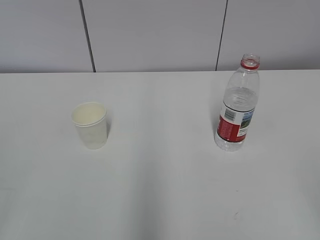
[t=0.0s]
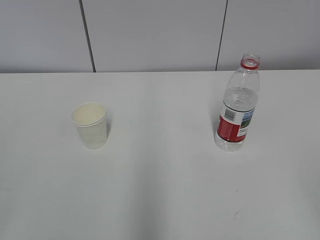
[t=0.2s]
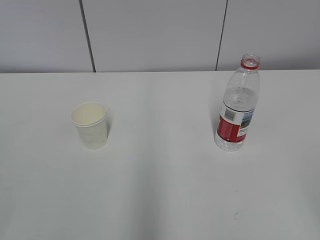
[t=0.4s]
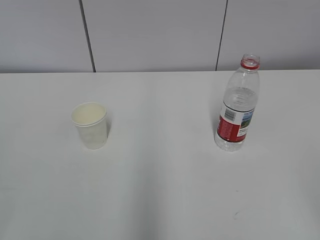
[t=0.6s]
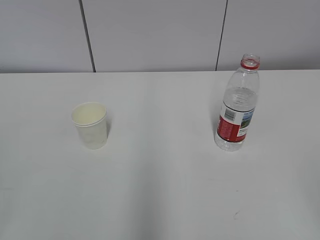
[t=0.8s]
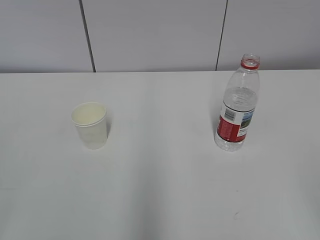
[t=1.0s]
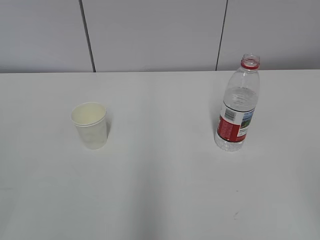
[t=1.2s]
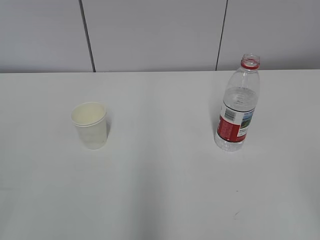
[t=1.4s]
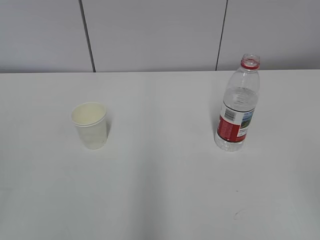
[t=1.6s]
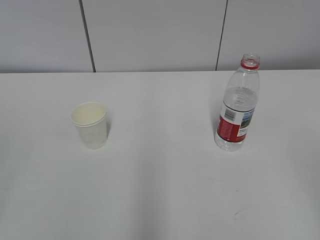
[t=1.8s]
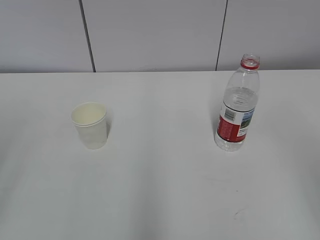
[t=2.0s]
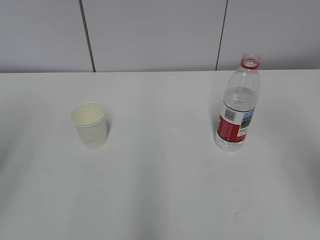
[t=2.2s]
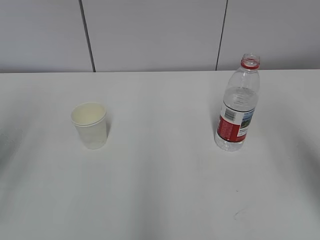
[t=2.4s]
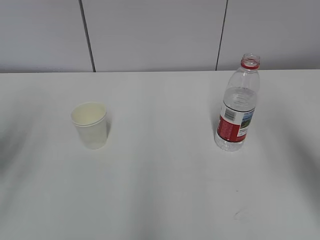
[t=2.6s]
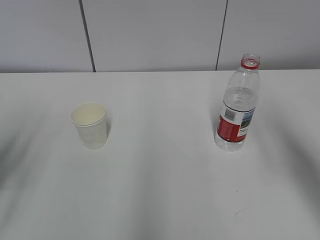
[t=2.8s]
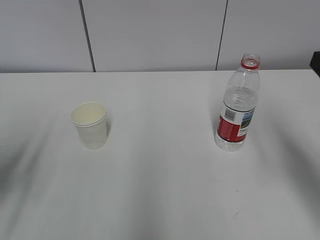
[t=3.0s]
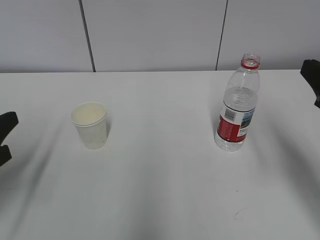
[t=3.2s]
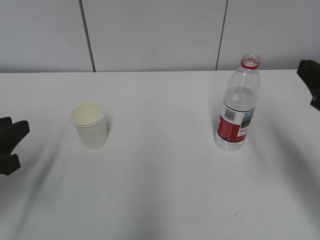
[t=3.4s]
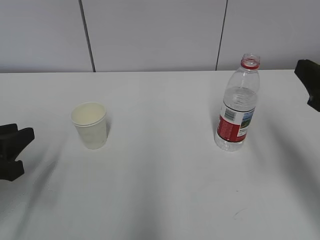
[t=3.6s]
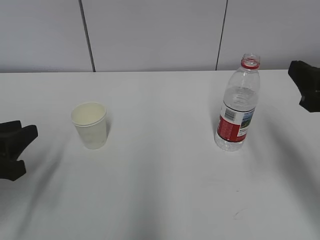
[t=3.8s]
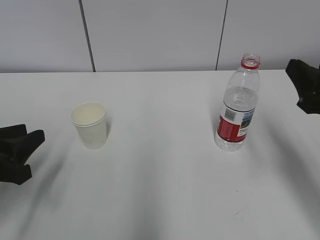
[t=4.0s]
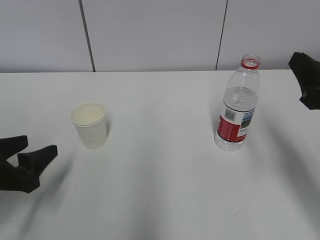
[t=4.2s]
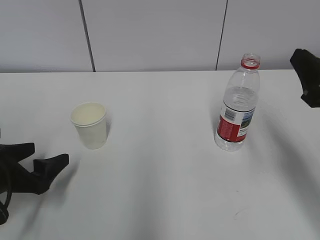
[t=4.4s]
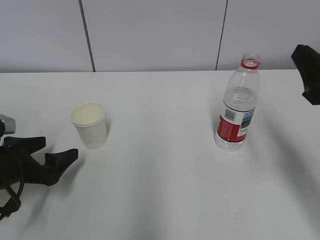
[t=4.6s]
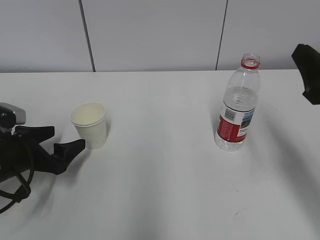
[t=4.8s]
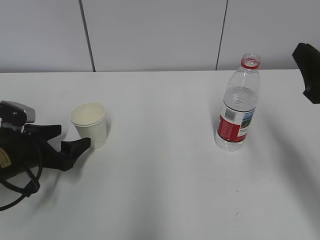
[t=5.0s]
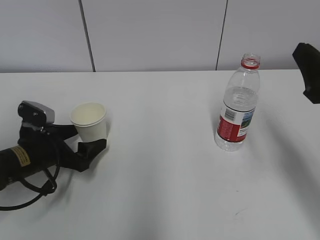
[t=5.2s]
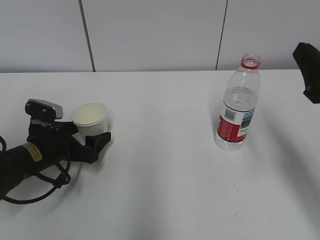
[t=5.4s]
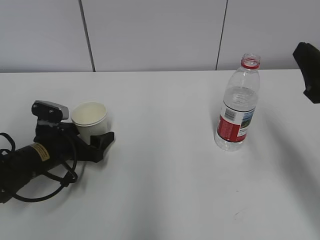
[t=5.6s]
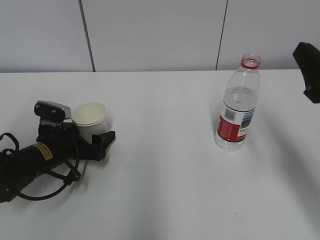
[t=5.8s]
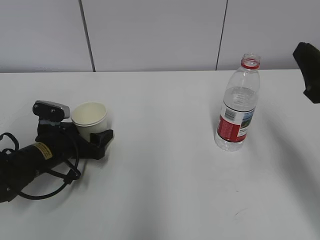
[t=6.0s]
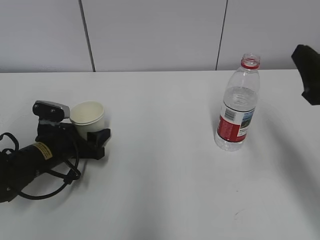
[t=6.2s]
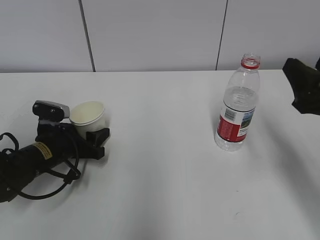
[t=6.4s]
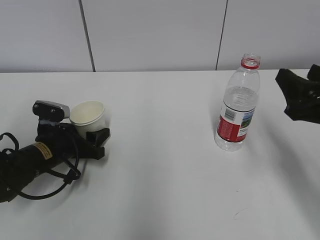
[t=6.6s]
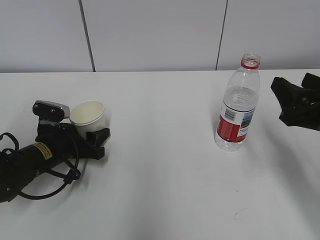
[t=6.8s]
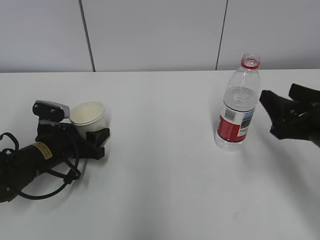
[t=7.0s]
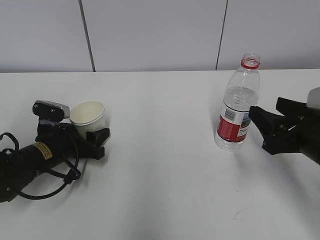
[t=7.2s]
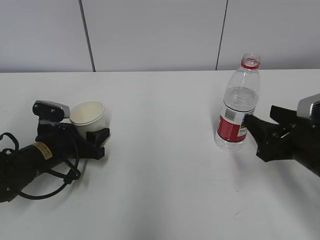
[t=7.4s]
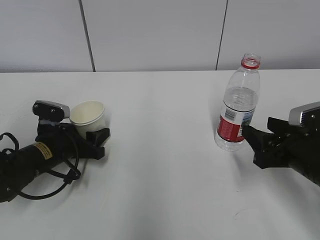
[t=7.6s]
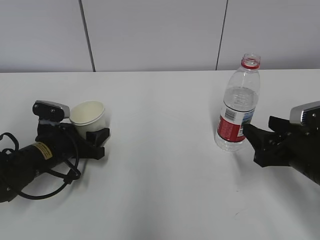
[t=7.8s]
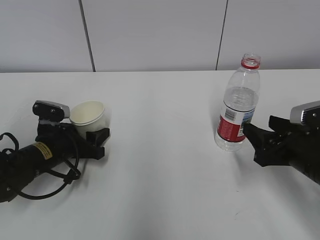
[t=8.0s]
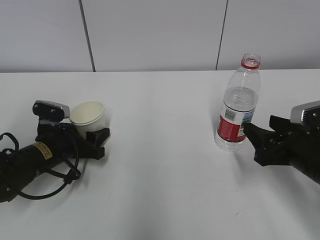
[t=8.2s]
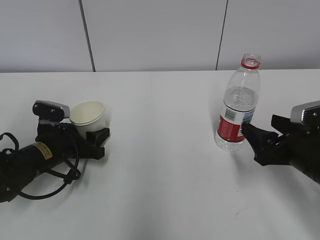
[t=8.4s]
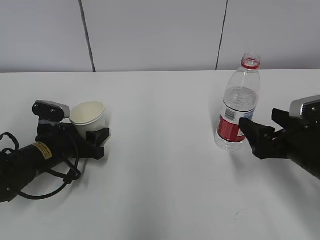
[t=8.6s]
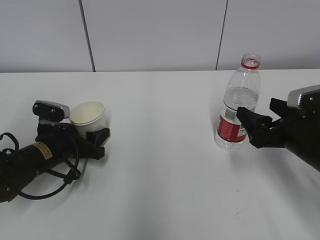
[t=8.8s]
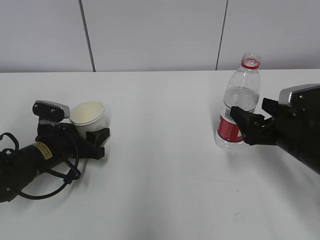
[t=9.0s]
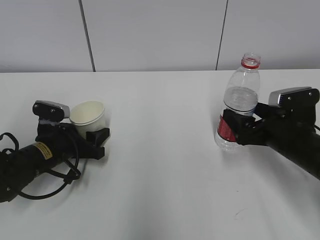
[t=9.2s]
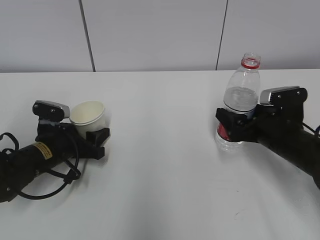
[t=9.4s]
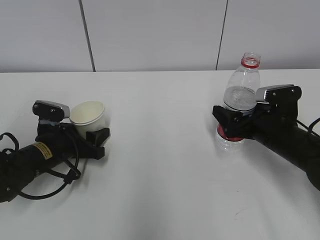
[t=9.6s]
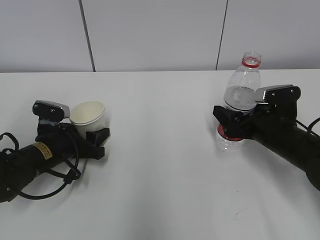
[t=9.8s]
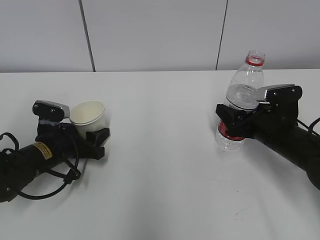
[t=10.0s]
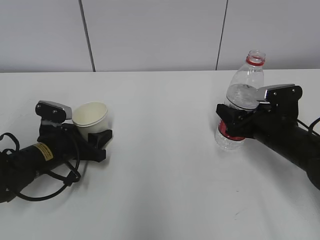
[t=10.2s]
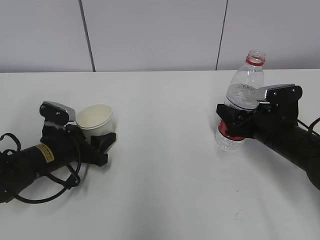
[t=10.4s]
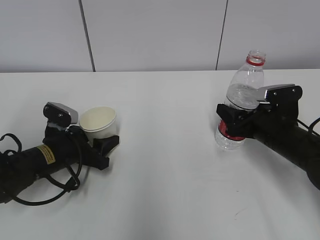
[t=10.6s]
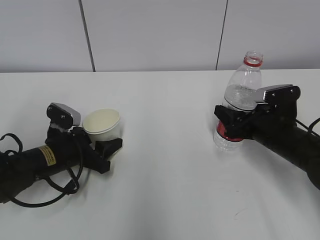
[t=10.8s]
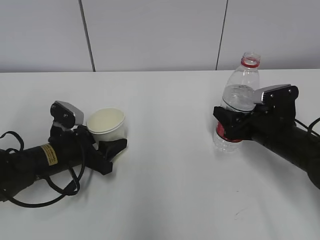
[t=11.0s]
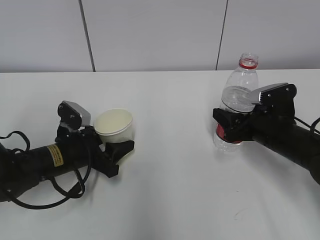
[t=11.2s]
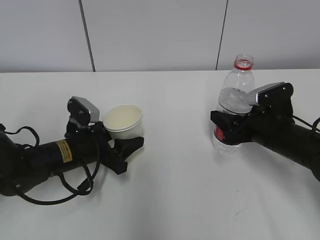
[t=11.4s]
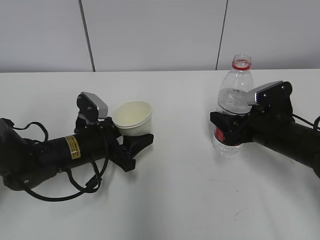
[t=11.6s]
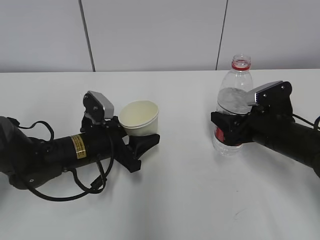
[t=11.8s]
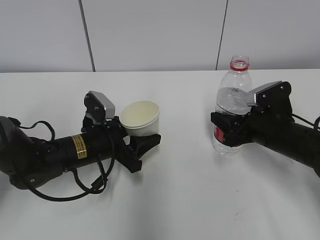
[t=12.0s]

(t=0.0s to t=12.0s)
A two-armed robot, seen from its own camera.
Step, t=0.0s - t=9.0s: Grab the paper cup with the left hand.
Step, t=9.2s - t=9.4s: Grab the water bottle with the right hand.
t=1.6s - t=3.0s: The right gripper heads forward, covering about 20 cm; the left gripper travels forward and downward by roughly 20 cm.
t=3.0s - t=4.4s: The left gripper travels downward by about 10 cm, and opens up.
t=4.4s - t=6.0s: The left gripper moves forward, to the right and downward, about 15 cm.
t=6.0s - t=7.6s: The right gripper is displaced downward by about 10 cm.
t=7.6s - t=9.0s: The right gripper opens up.
t=9.0s - t=10.4s: The right gripper ends up approximately 5 cm from where it was, and closes its fingers.
t=10.4s - t=12.0s: The left gripper is displaced to the right by approximately 5 cm.

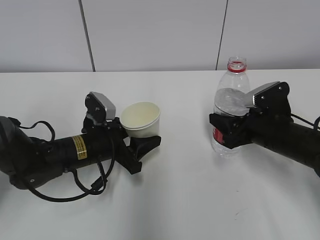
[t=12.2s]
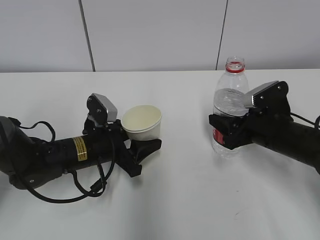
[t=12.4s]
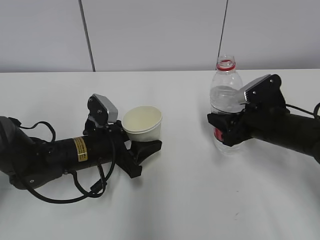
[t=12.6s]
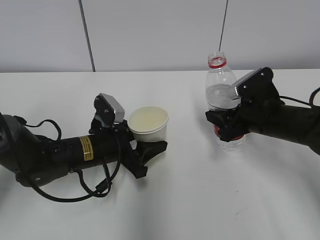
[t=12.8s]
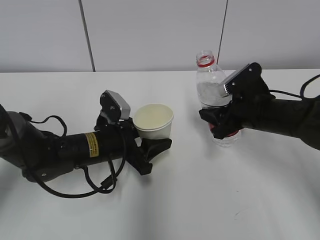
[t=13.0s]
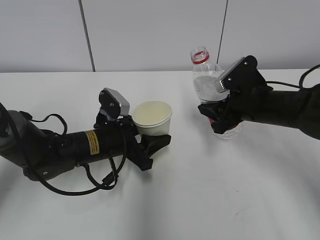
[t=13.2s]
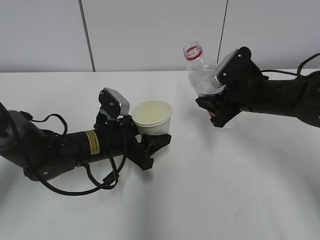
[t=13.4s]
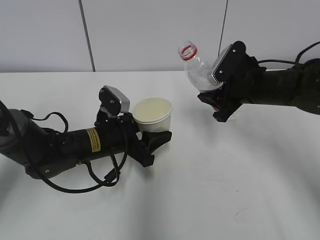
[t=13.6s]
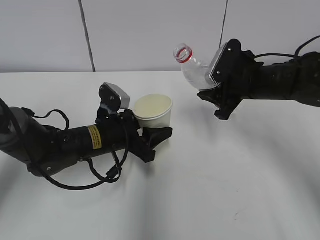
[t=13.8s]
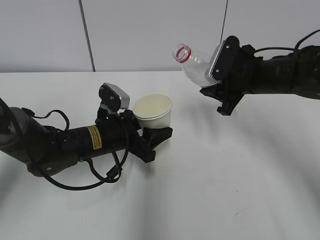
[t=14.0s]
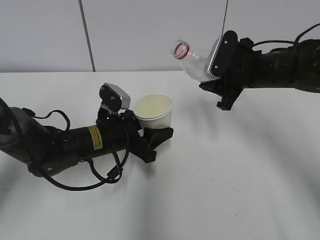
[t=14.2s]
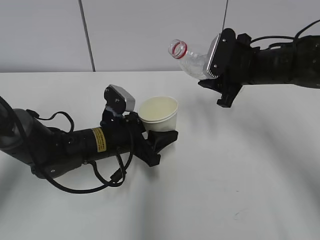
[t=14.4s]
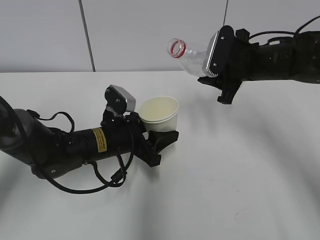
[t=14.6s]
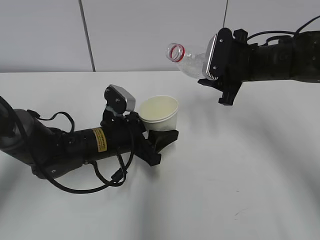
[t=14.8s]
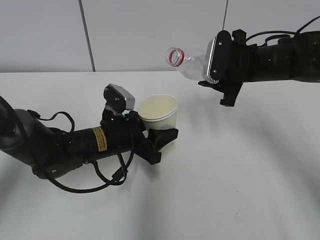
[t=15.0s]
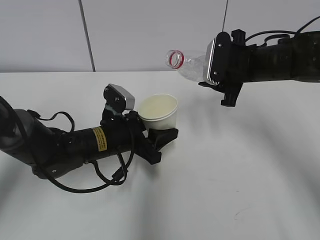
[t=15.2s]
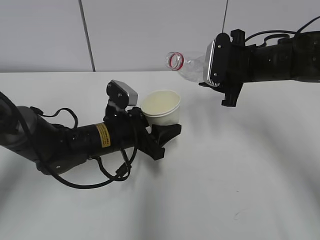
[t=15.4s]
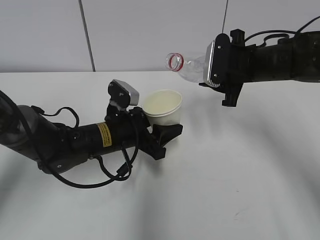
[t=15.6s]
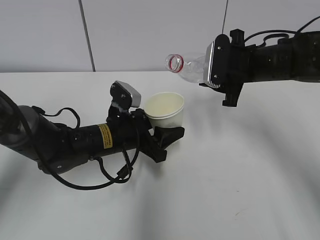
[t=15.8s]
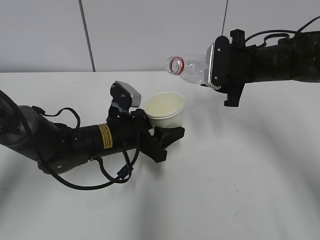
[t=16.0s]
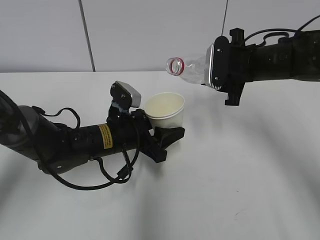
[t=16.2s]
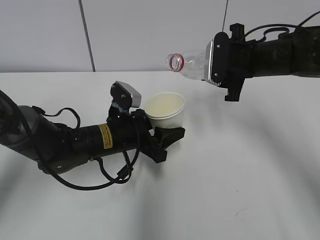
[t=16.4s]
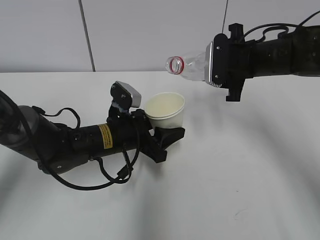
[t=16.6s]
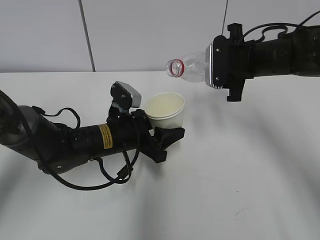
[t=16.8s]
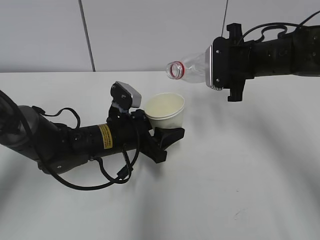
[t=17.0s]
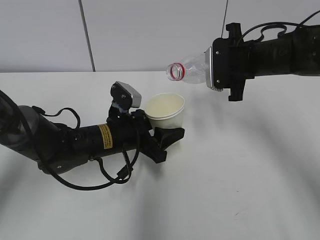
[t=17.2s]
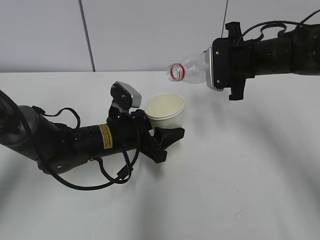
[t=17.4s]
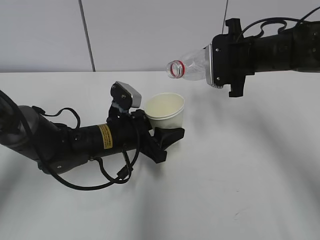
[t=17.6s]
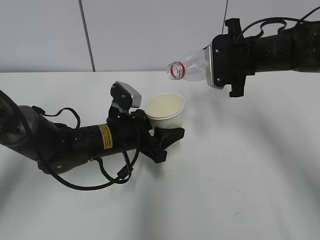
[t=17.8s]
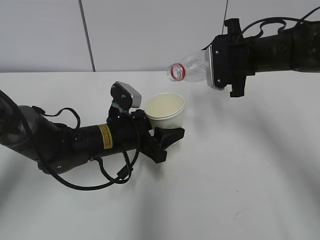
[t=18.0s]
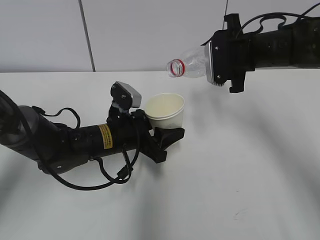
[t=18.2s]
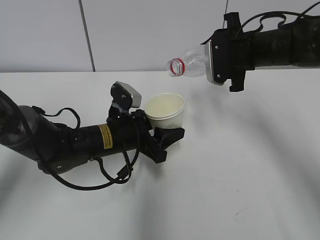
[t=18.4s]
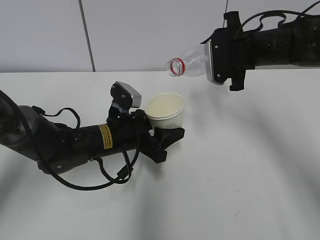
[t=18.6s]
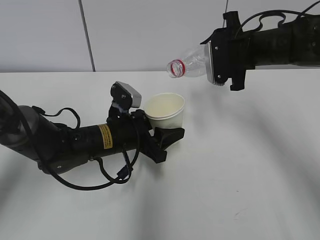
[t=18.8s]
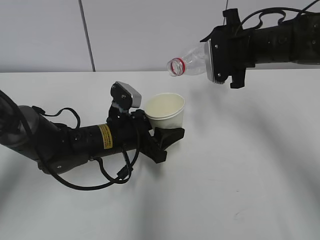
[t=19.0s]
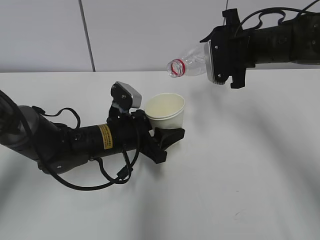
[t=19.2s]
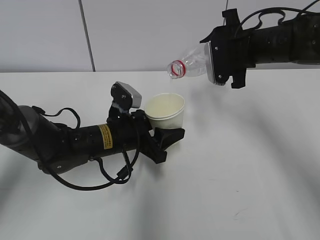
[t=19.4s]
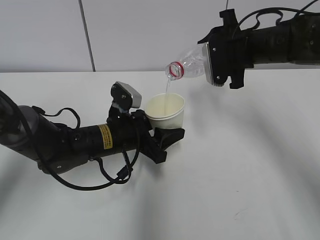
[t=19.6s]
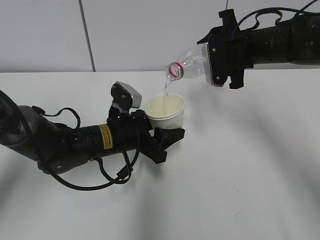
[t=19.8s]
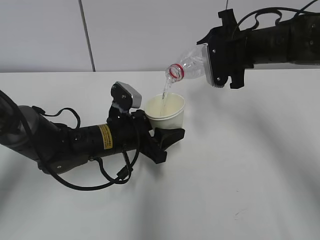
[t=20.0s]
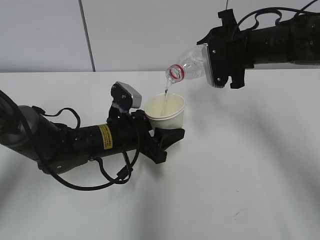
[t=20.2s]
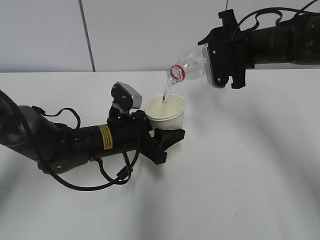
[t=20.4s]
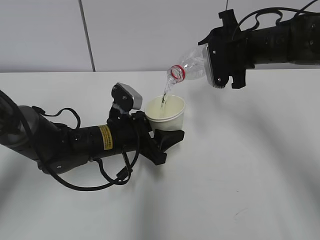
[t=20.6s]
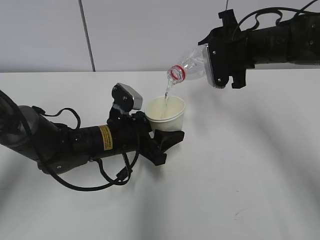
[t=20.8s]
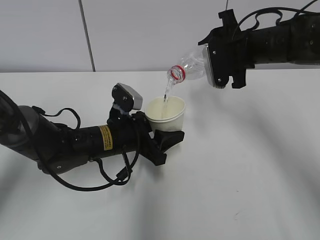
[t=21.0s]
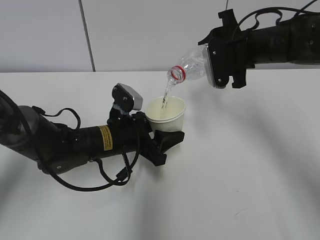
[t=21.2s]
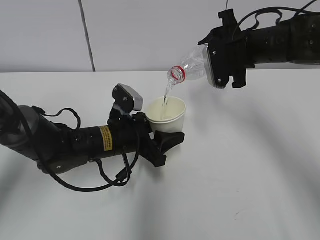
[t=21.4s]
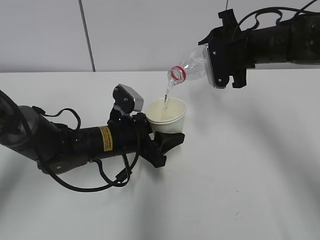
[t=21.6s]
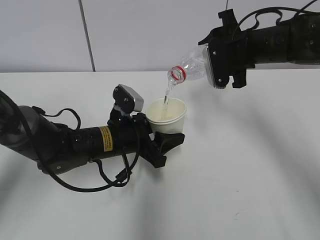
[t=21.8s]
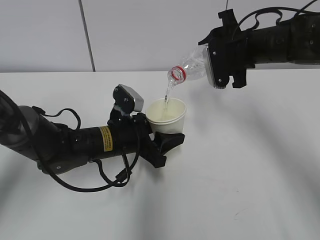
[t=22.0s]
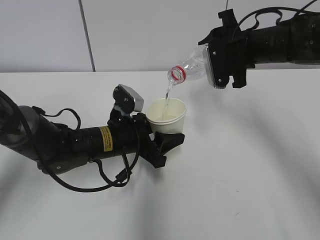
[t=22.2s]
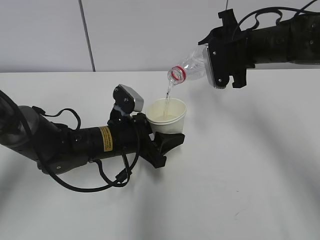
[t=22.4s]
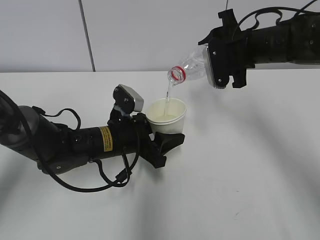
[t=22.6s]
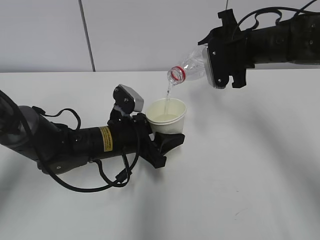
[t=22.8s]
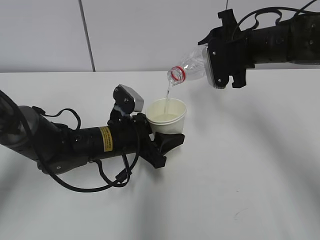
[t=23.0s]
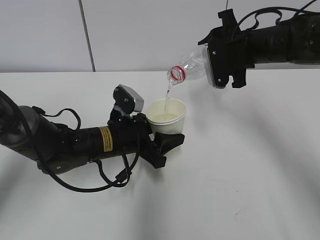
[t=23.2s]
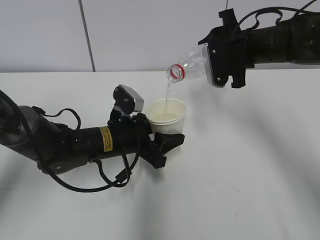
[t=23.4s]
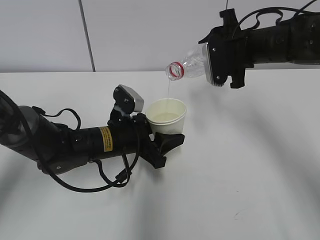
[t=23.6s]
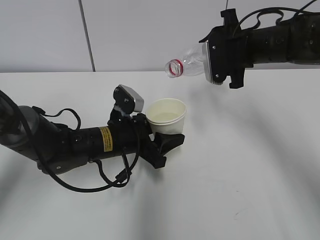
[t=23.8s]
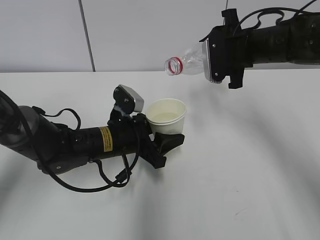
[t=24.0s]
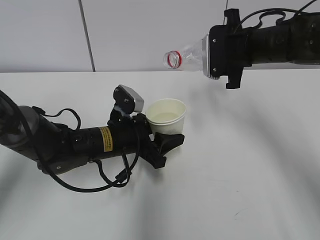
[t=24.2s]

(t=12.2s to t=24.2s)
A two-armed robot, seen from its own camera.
Step, t=12.2s - t=16.0s: Lift the paper cup with the left hand.
Step, t=16.2s - t=19.6s: Pour water with the right hand.
t=12.2s - t=13.8s: The right gripper moves upward and forward, about 10 cm.
t=15.2s - t=16.6s: The grippers move only a little.
t=16.6s - t=19.8s: The grippers stay close to where they were, moving slightly.
t=19.8s - t=22.6s: Both grippers stay put.
t=22.6s - t=24.2s: There are only small adjustments of the grippers.
